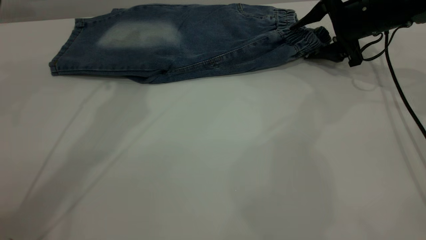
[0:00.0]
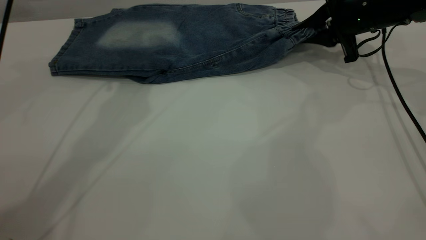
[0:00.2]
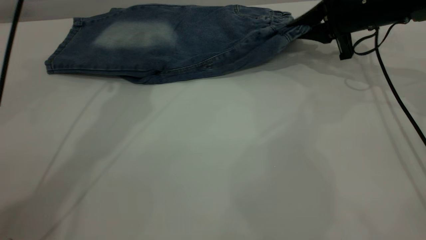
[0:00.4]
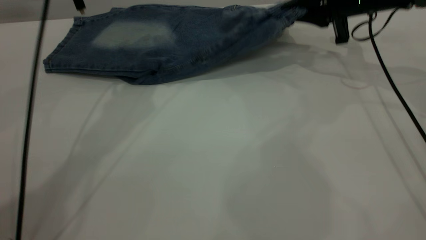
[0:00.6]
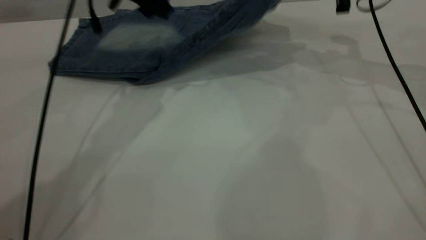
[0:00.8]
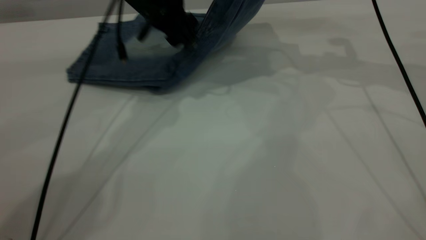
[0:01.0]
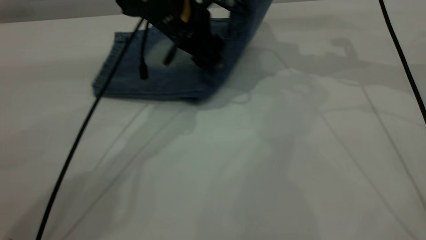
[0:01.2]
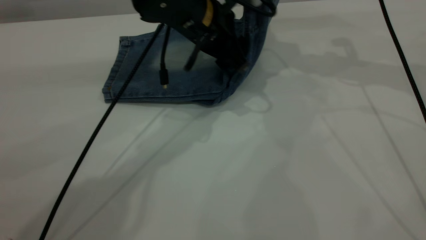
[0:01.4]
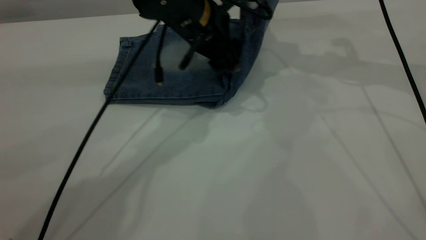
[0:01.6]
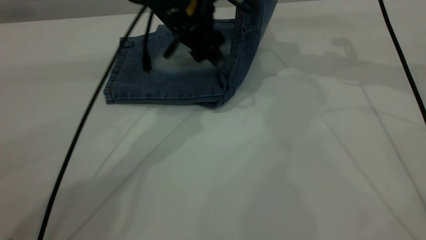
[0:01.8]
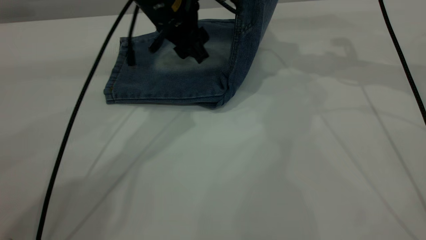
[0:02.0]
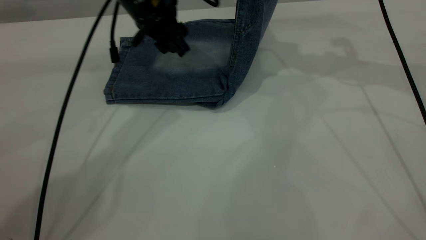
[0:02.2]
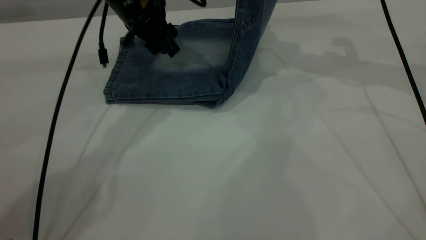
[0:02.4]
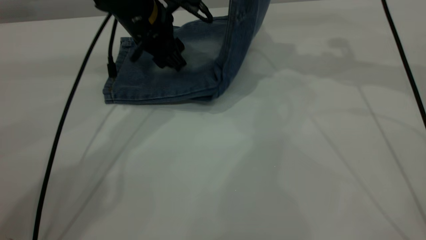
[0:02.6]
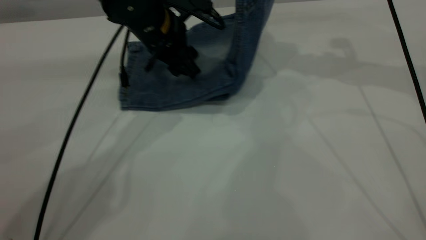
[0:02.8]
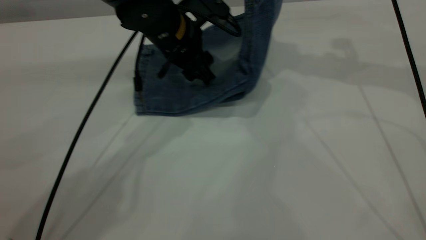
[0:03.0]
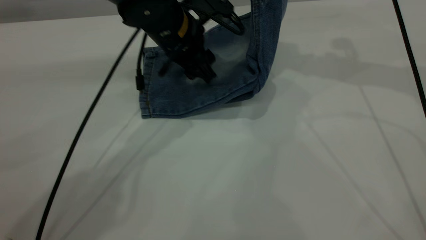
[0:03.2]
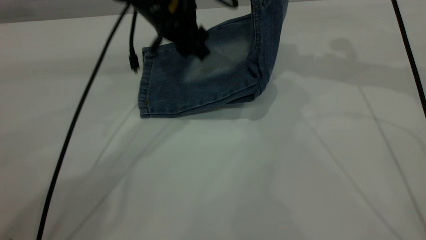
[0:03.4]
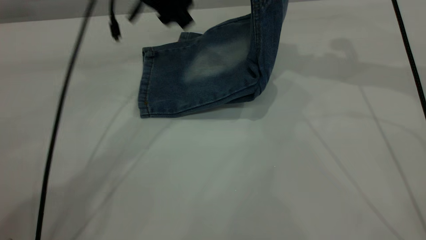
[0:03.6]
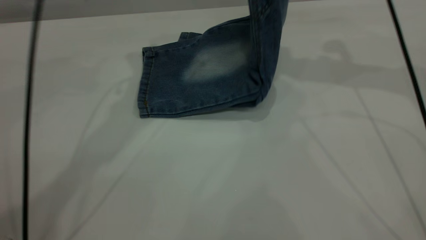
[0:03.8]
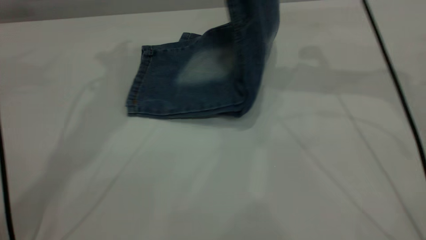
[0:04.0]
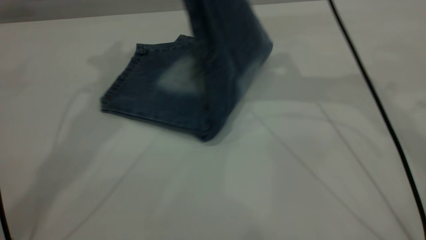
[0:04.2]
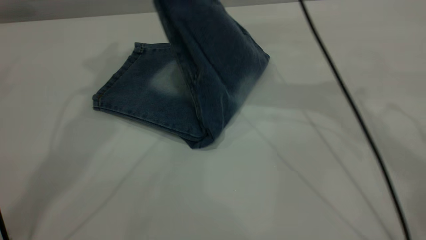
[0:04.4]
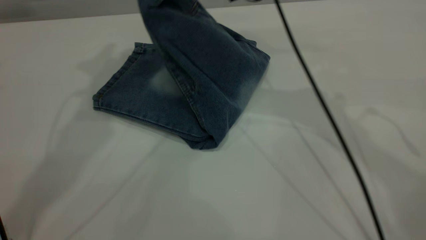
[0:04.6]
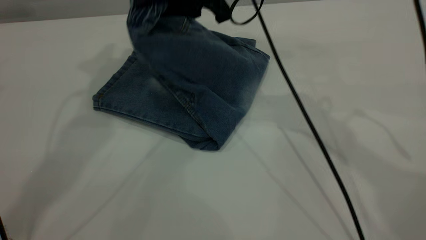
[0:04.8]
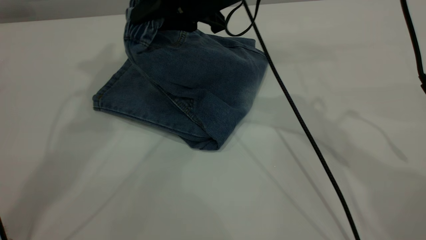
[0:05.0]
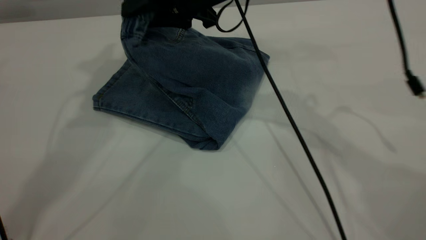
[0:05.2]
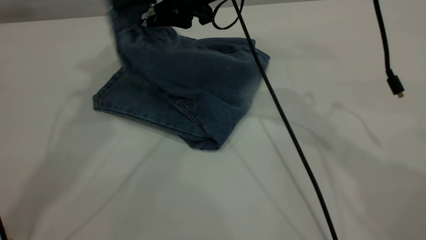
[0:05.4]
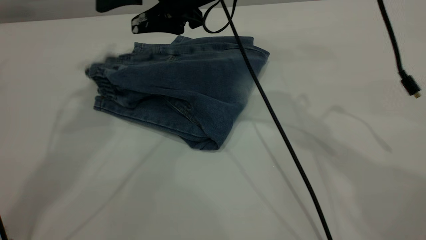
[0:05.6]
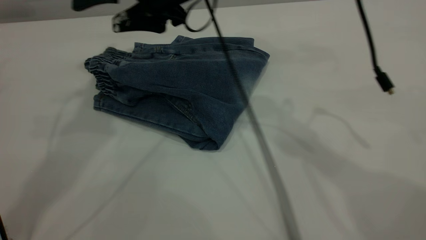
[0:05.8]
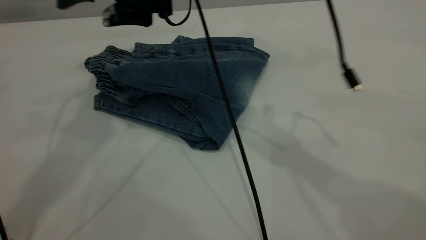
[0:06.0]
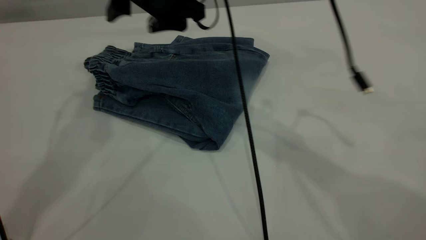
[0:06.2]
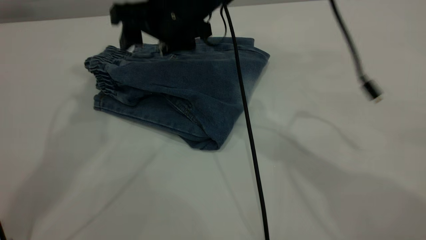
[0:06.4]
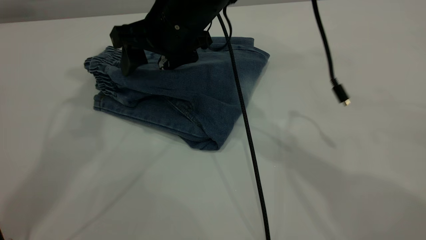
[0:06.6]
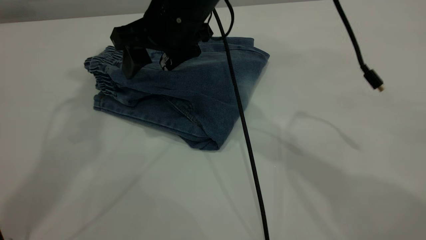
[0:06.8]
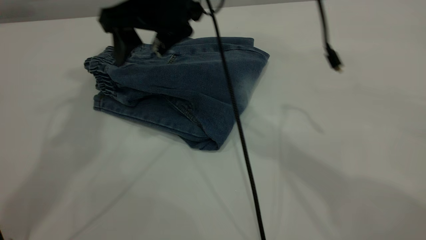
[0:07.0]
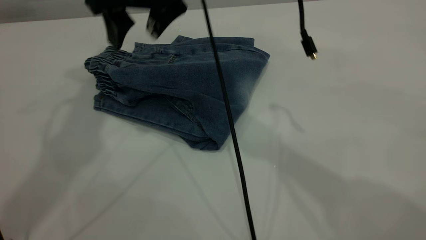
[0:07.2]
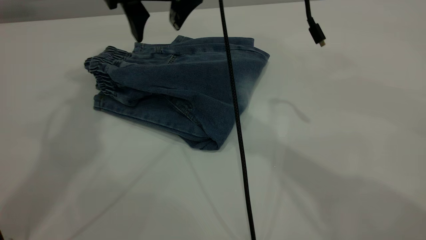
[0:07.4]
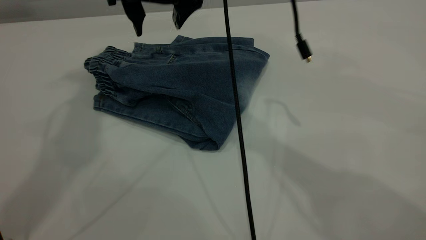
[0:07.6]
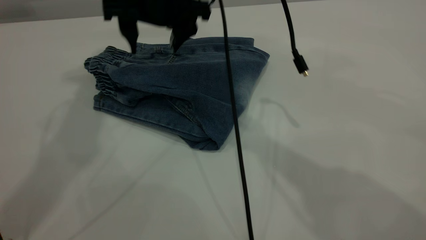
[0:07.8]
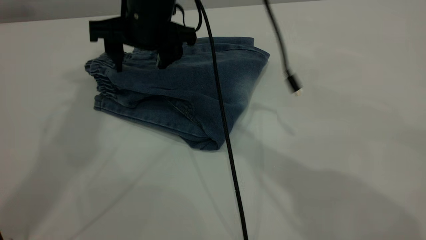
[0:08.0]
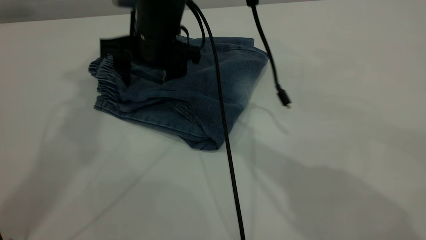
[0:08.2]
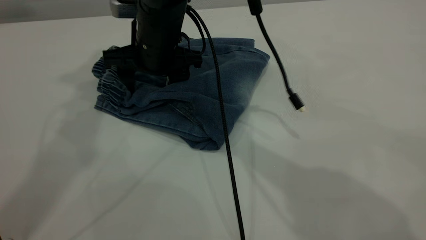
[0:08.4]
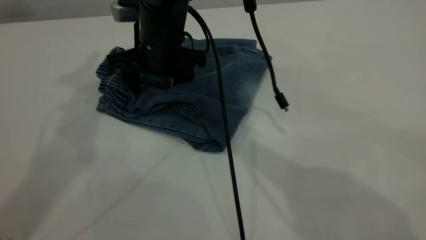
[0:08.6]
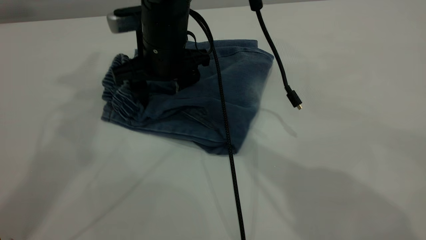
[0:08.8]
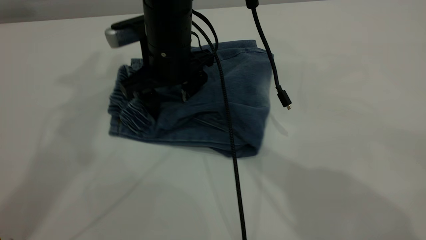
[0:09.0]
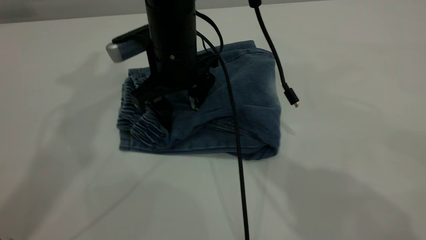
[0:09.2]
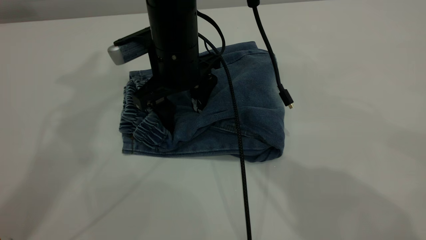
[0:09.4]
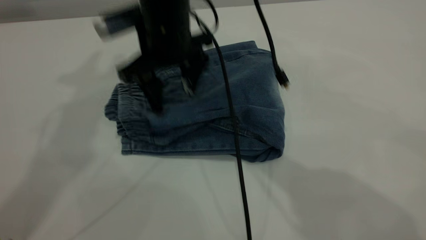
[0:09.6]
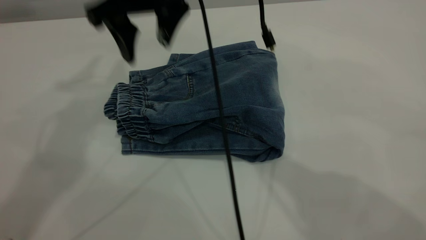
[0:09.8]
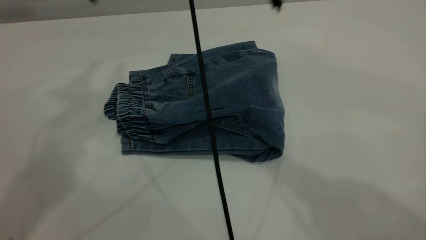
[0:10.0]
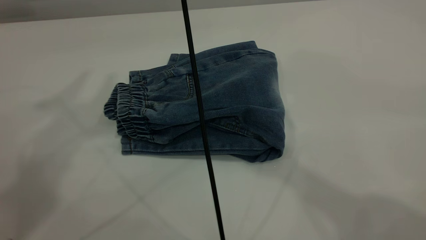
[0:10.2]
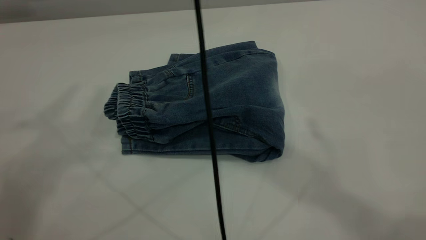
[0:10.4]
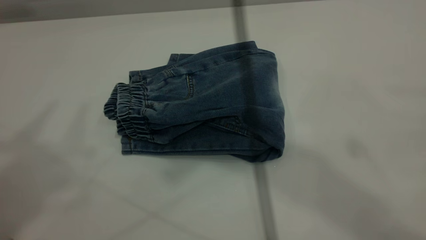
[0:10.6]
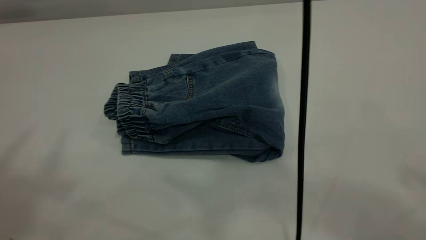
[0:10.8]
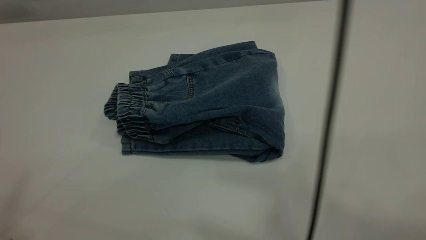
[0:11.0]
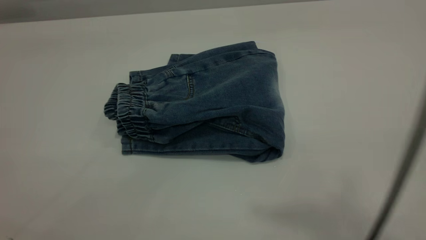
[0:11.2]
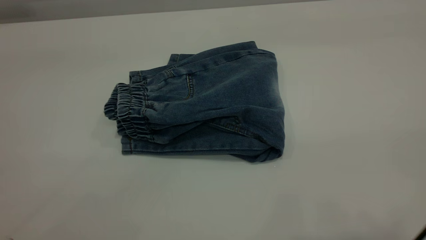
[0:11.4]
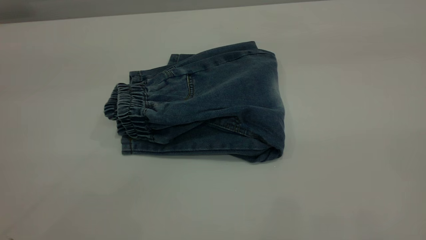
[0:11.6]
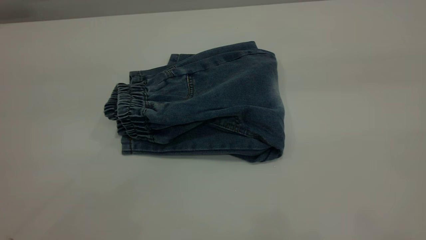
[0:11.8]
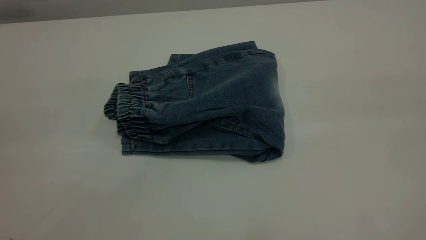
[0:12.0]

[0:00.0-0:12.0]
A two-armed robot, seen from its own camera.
Step, 0.0 to 5.6 s: Fold your pants from right to left.
0.0 to 1.6 s: The left gripper goes about 20 cm downward and to the right; the right gripper shifts approximately 15 cm upward, and closes its fingers.
1.6 to 3.0 s: The left gripper reaches approximately 10 cm to the left, then returns.
3.0 to 4.4 s: The left gripper is displaced upward and to the left by about 30 cm; the right gripper is displaced to the left by roughly 15 cm.
4.4 to 6.0 s: The right gripper moves to the left, roughly 10 cm, and opens its fingers.
6.0 to 7.6 s: The left gripper ends up roughly 5 cm from where it was.
7.6 to 9.0 s: The right gripper shifts roughly 10 cm downward.
9.0 to 10.4 s: The left gripper is displaced backward and upward by roughly 15 cm. Meanwhile the right gripper heads upward, covering roughly 35 cm.
10.4 to 12.0 s: The right gripper shifts about 40 cm backward and to the right. The left gripper heads backward and downward, covering approximately 20 cm.

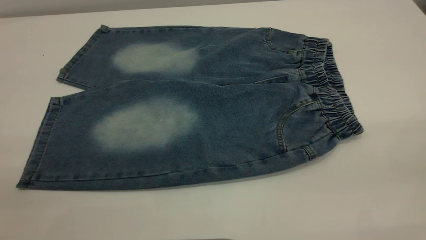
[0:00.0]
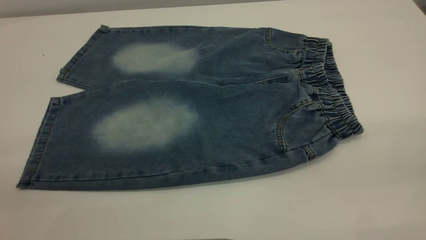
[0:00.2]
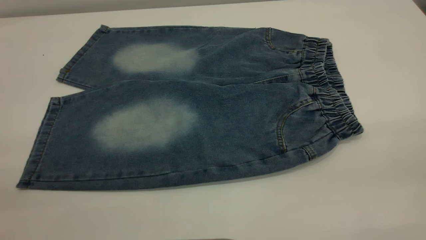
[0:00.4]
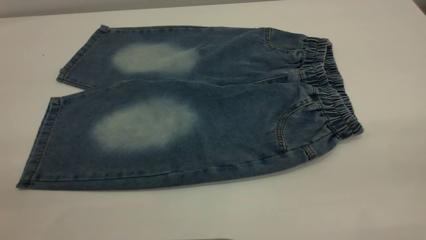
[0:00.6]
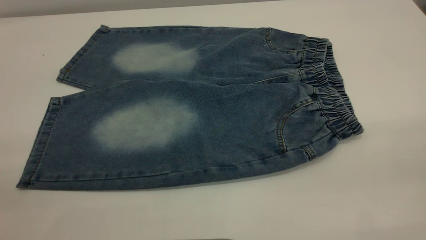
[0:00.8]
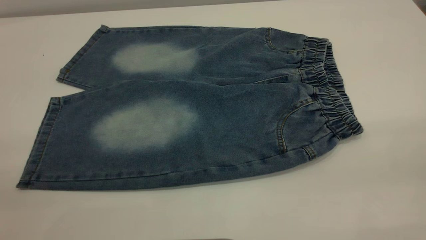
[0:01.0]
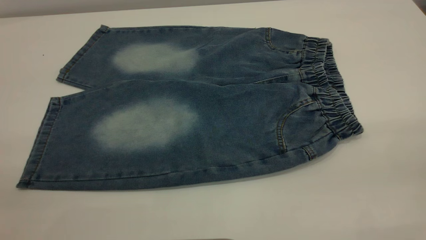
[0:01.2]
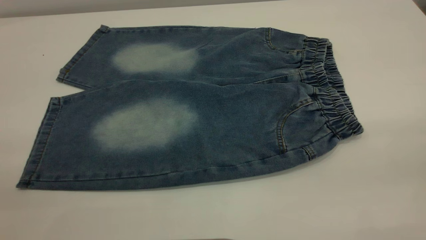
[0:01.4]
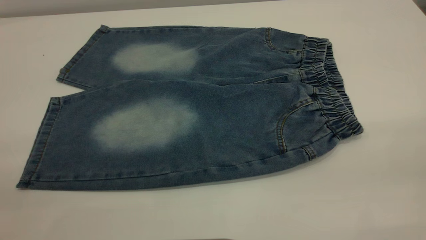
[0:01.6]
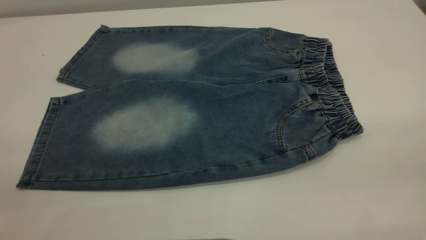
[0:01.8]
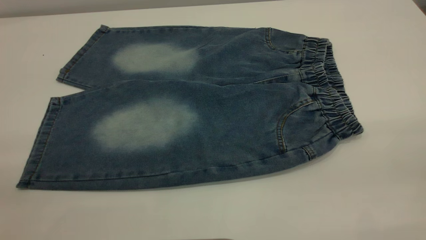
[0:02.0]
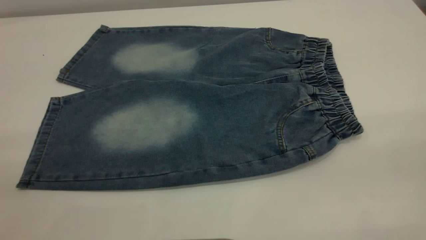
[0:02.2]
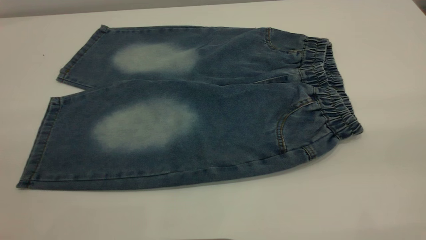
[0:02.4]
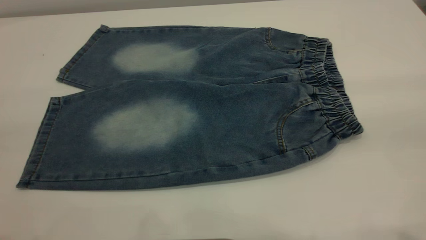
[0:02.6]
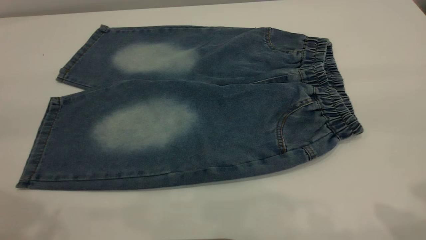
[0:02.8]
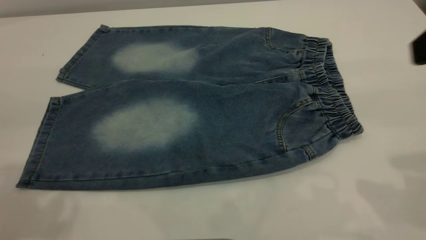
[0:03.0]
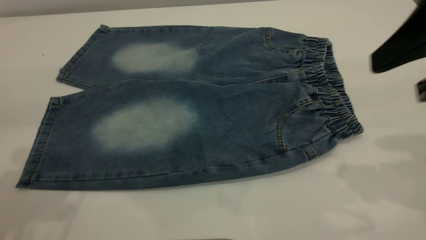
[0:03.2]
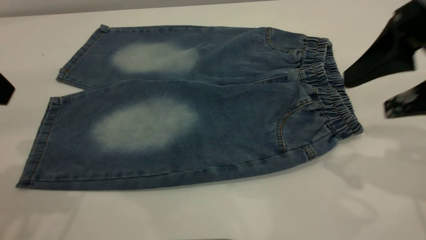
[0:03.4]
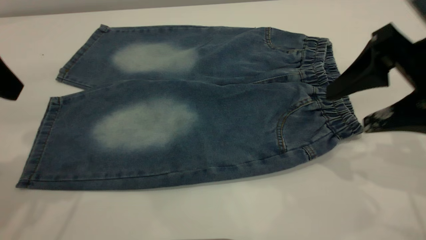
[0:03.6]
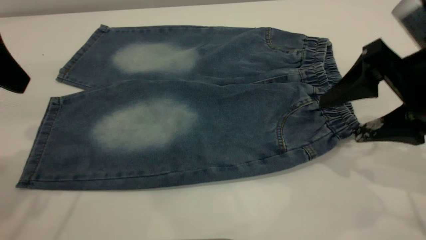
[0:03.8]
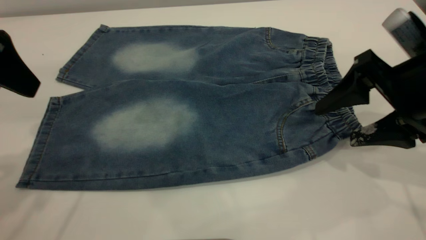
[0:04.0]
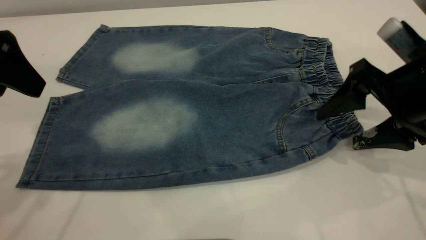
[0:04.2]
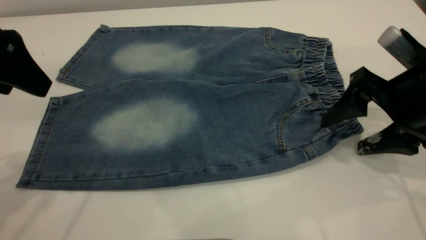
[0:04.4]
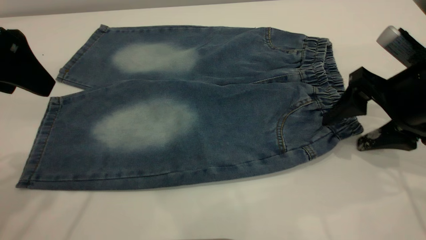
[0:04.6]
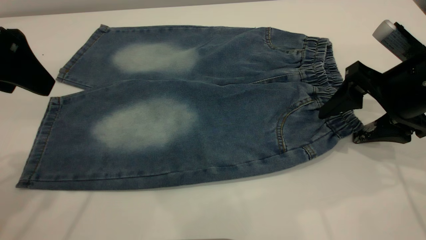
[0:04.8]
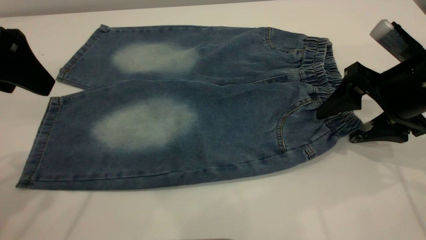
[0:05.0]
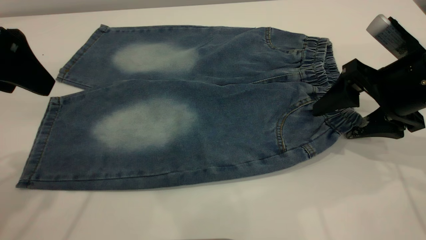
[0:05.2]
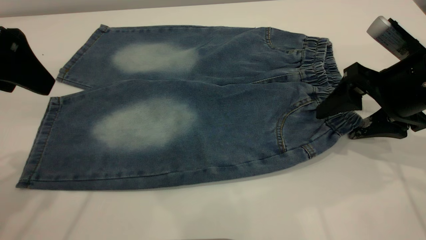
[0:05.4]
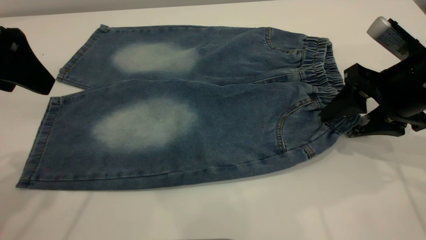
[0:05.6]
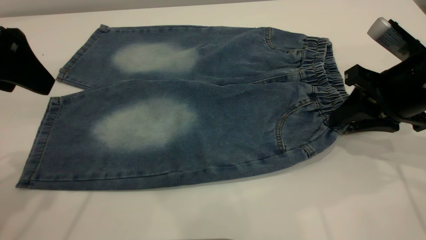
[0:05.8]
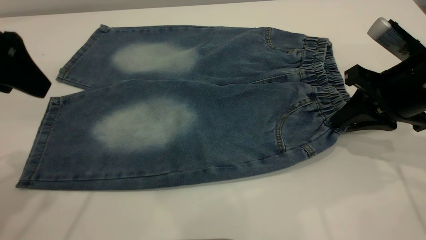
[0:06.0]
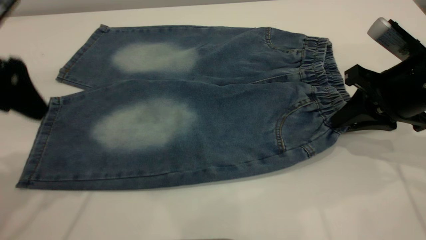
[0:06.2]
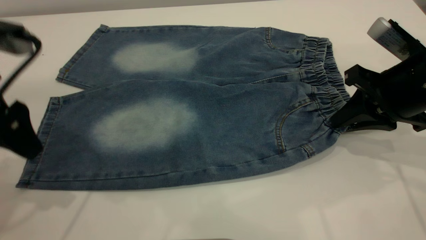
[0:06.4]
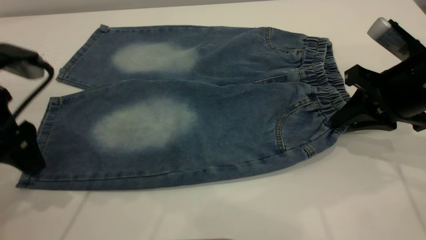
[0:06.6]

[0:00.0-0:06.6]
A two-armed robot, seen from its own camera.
0.0 to 1.6 s: The two grippers keep their place.
1.6 to 3.2 s: The right gripper shifts about 25 cm forward and downward.
3.2 to 5.0 s: The left gripper moves some 5 cm. Meanwhile the right gripper is displaced downward and forward by some 15 cm.
5.0 to 6.6 s: The right gripper closes. Meanwhile the left gripper shifts roughly 10 cm downward.
